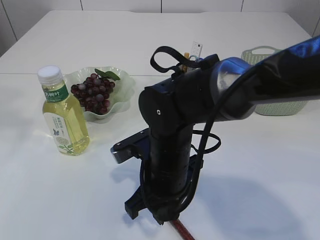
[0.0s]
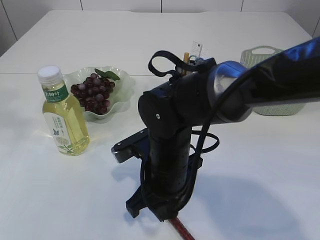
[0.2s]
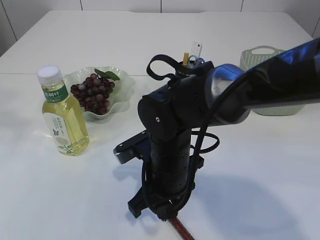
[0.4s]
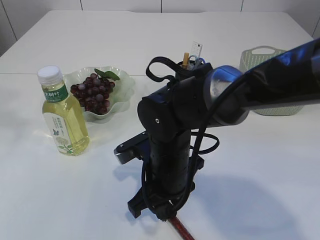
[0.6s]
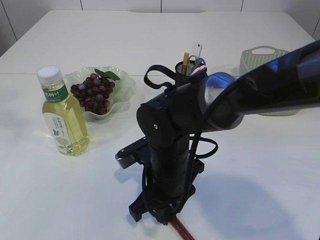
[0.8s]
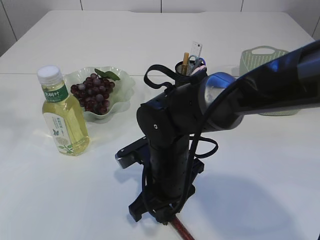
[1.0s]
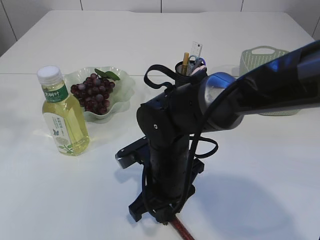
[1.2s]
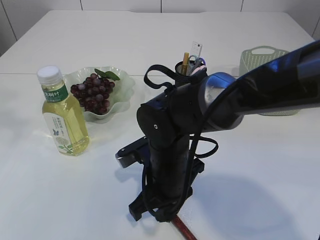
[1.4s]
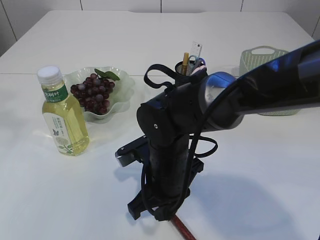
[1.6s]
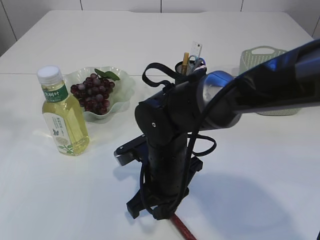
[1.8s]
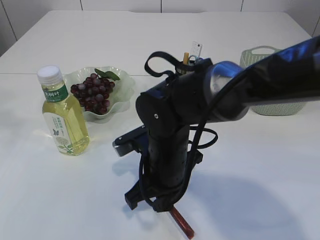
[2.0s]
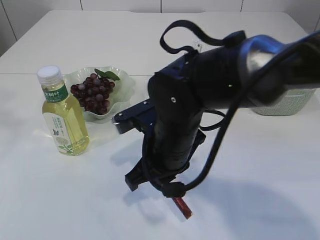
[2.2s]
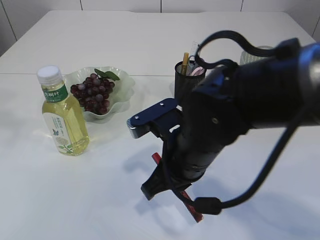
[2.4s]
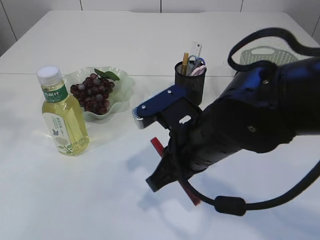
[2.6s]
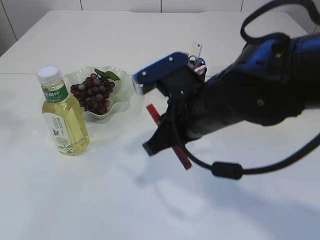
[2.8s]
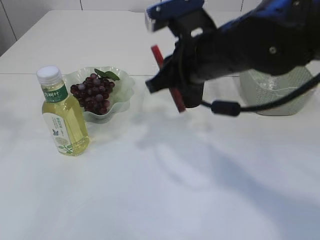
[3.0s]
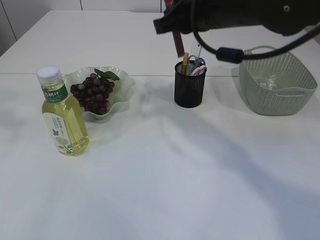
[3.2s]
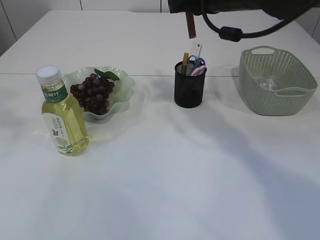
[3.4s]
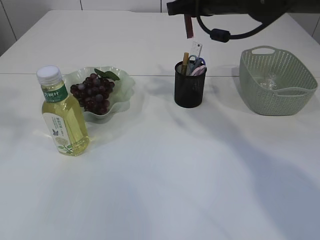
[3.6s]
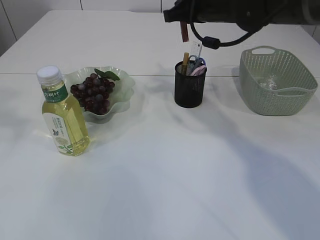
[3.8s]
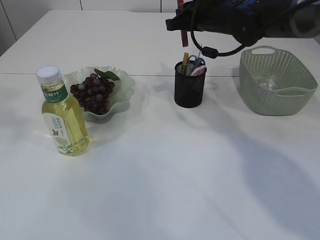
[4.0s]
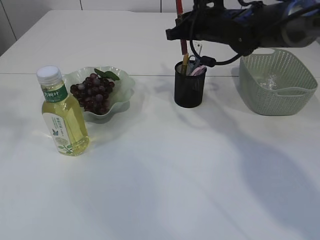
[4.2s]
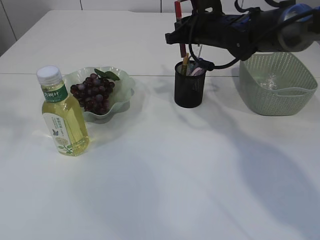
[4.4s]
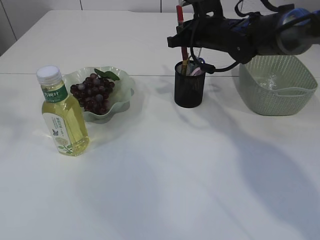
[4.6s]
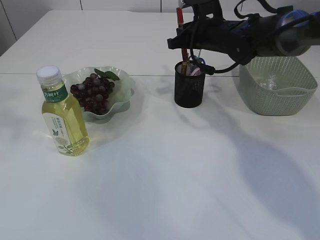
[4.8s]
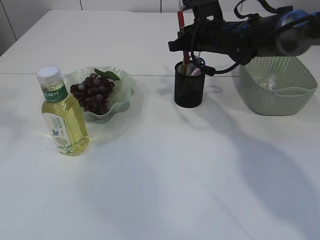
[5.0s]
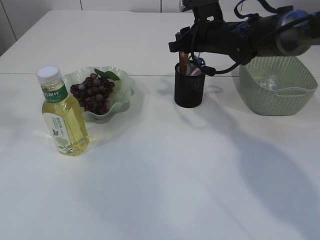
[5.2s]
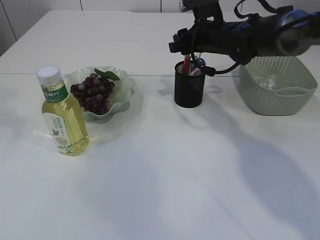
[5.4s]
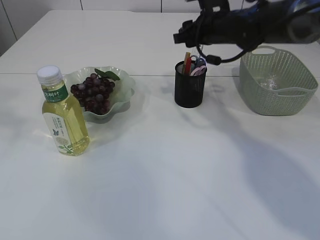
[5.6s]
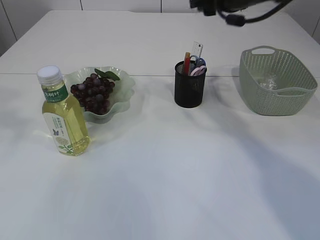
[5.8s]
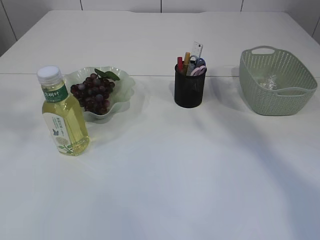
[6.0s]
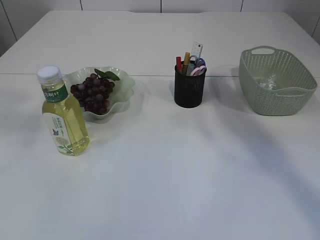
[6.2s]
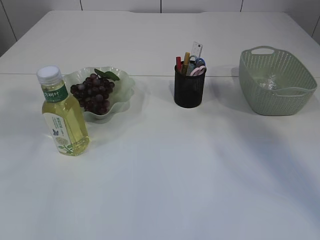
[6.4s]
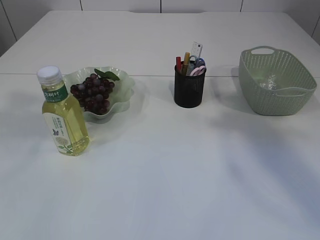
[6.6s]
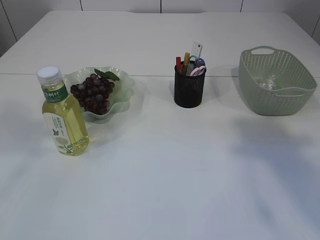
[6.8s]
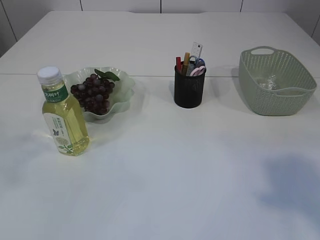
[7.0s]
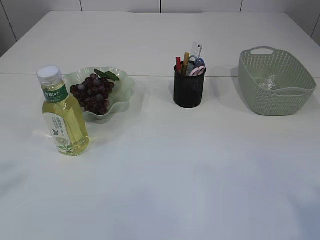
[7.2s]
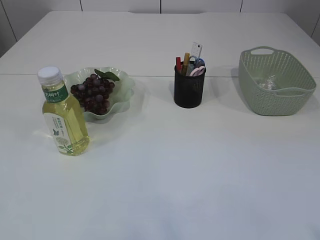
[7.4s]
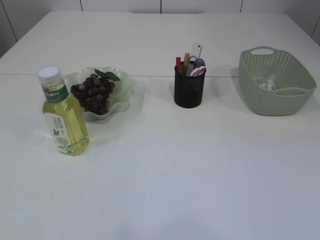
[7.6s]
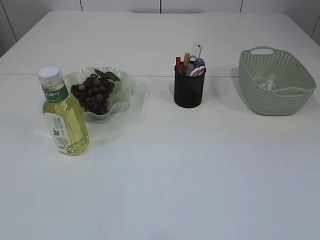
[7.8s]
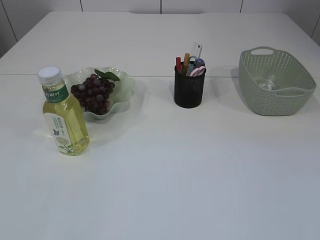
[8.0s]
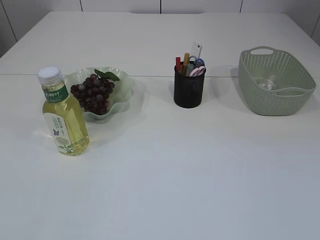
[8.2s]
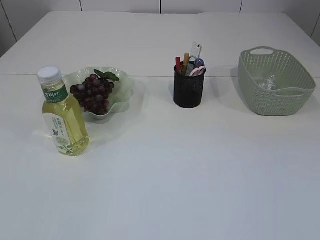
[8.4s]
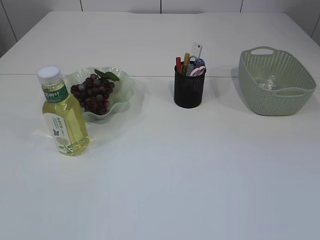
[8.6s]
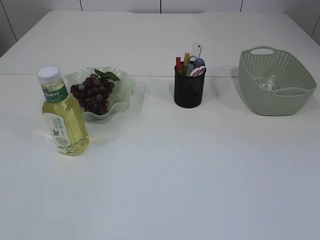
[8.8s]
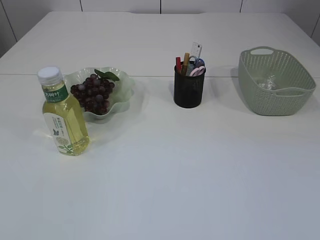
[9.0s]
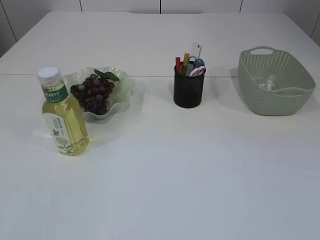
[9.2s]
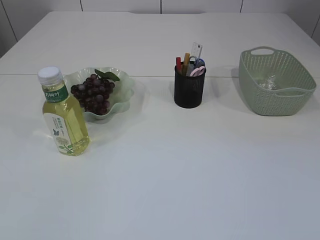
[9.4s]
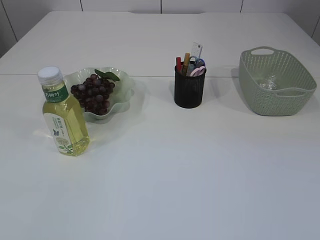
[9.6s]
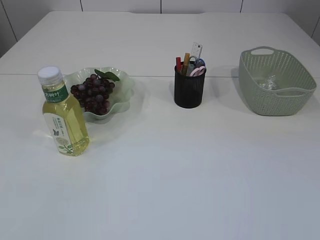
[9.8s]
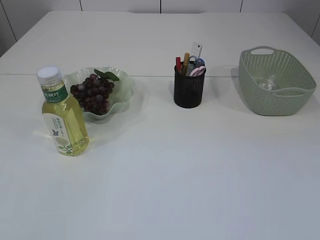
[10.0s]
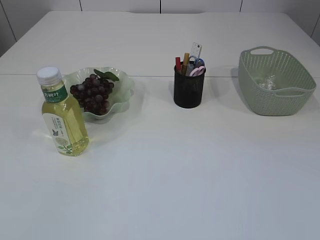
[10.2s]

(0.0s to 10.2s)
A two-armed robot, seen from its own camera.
Step, 0.0s - 2.2s: pick up the red glue.
Step, 2.4s - 5.4s: place the red glue into the pen holder.
0.0s - 1.4s: The grippers make only small movements.
1.4s - 3.0s: The right gripper moves upward and to the right, about 15 cm.
3.0s - 4.4s: The right gripper goes about 20 cm forward.
4.4s - 5.8s: The right gripper heads upward, covering approximately 10 cm, and opens up.
5.8s - 7.2s: The left gripper is displaced backward by roughly 15 cm, while the right gripper moves backward, roughly 40 cm.

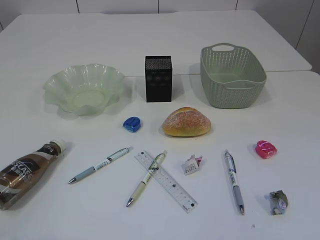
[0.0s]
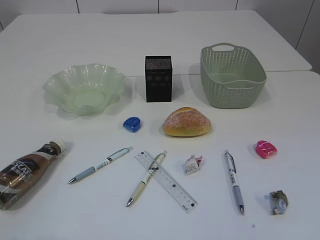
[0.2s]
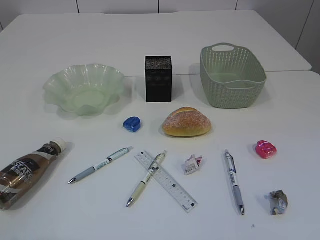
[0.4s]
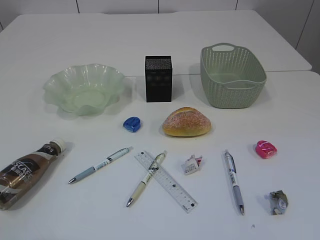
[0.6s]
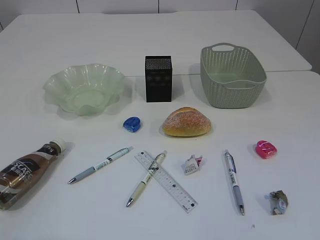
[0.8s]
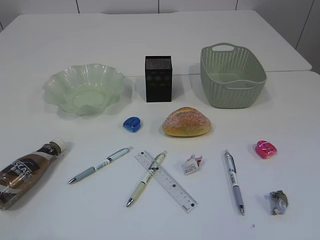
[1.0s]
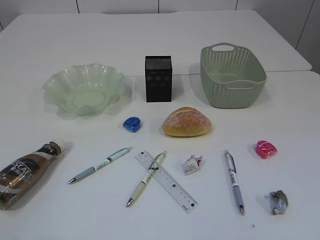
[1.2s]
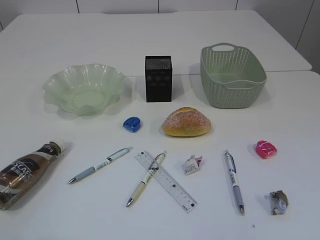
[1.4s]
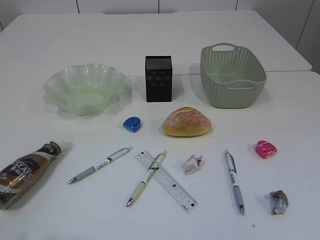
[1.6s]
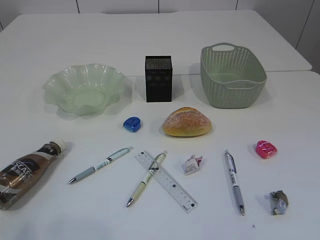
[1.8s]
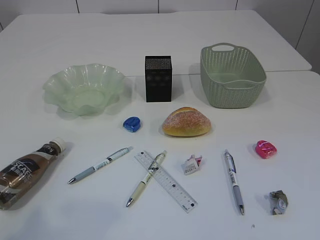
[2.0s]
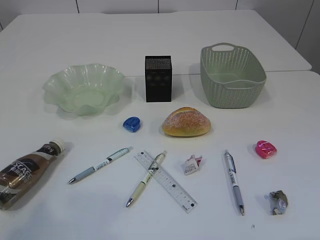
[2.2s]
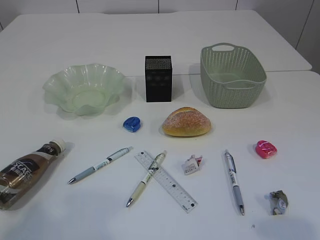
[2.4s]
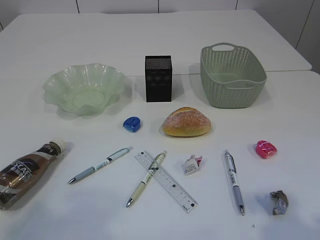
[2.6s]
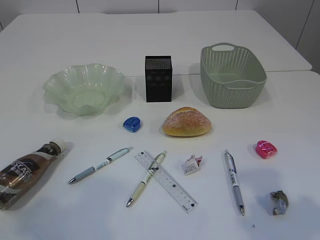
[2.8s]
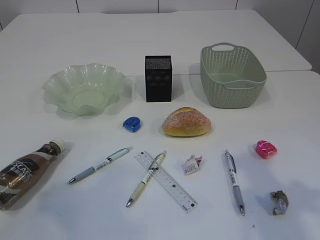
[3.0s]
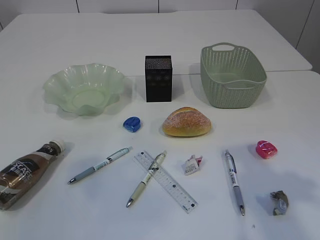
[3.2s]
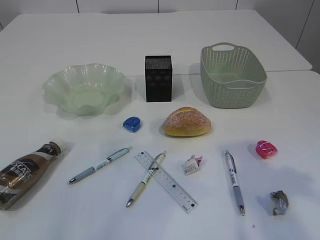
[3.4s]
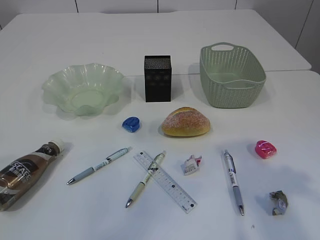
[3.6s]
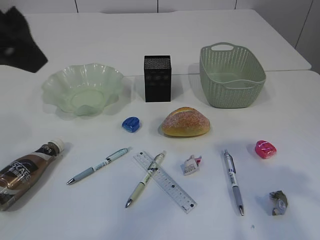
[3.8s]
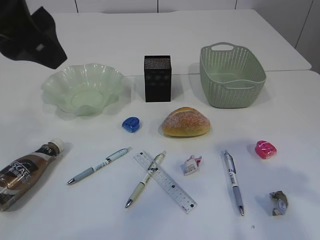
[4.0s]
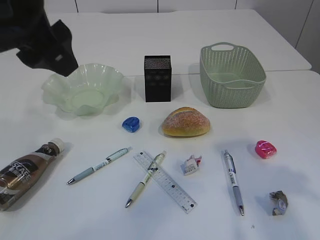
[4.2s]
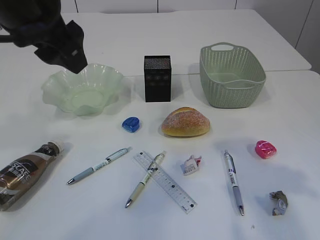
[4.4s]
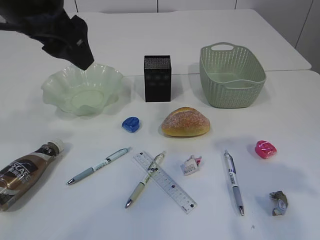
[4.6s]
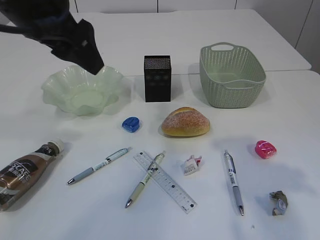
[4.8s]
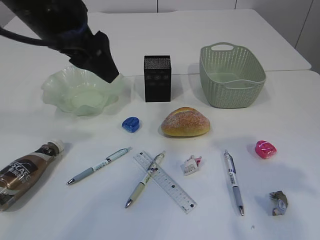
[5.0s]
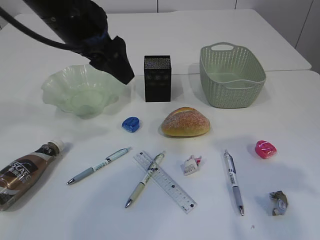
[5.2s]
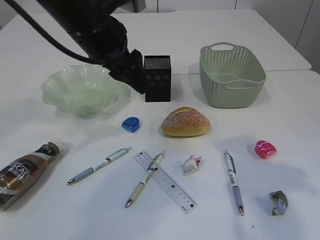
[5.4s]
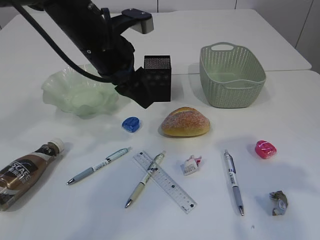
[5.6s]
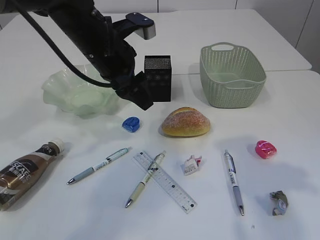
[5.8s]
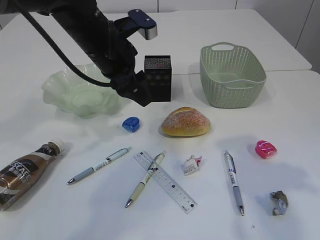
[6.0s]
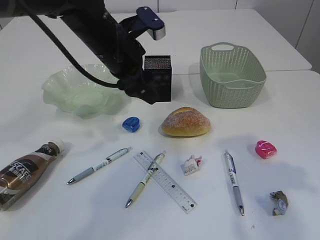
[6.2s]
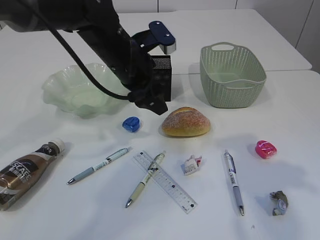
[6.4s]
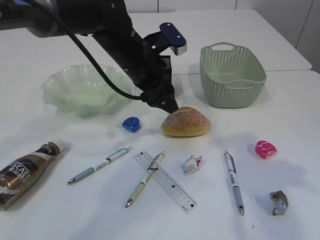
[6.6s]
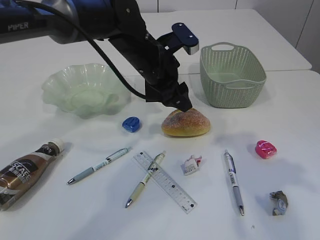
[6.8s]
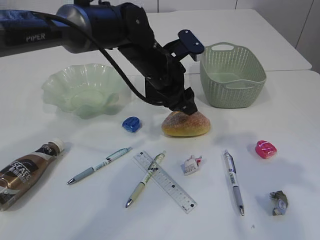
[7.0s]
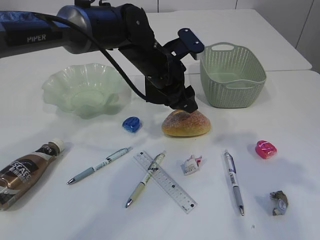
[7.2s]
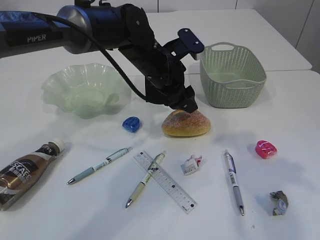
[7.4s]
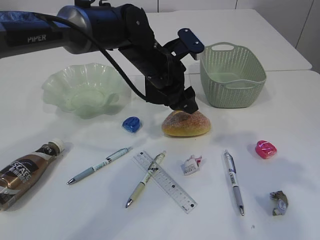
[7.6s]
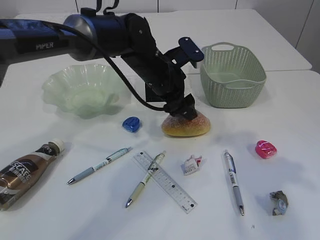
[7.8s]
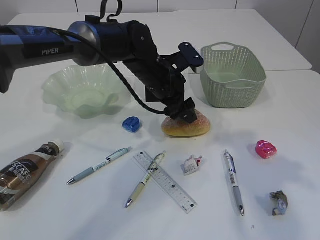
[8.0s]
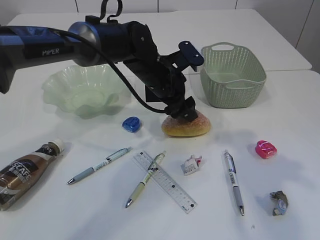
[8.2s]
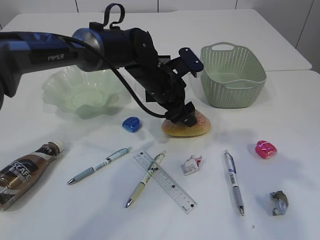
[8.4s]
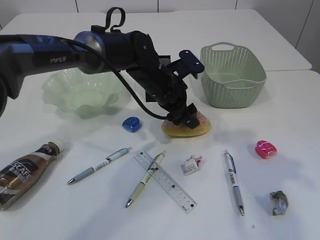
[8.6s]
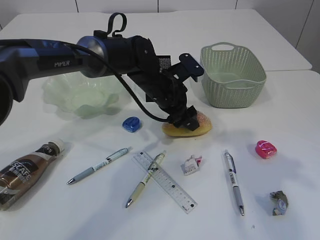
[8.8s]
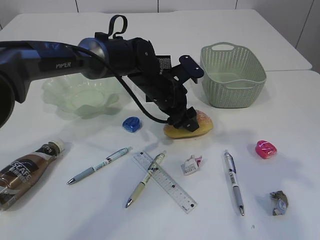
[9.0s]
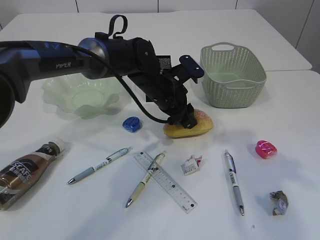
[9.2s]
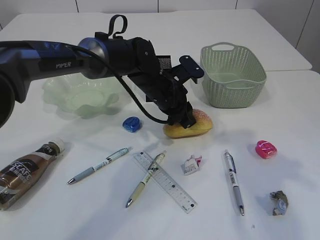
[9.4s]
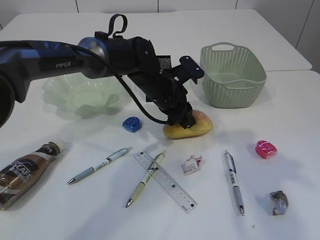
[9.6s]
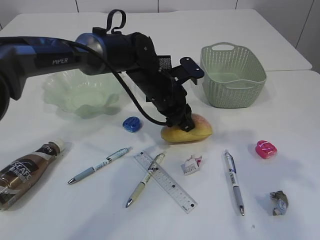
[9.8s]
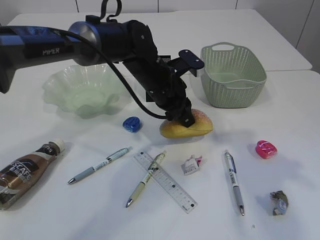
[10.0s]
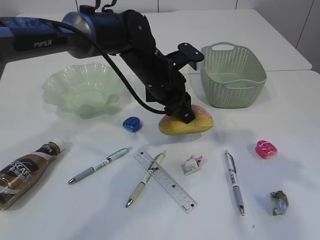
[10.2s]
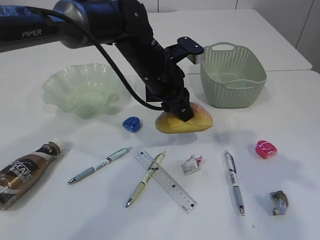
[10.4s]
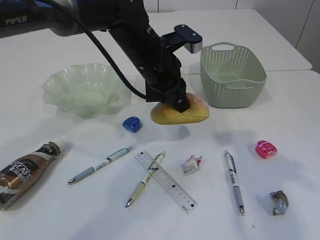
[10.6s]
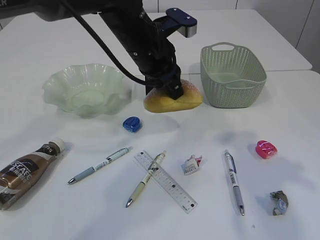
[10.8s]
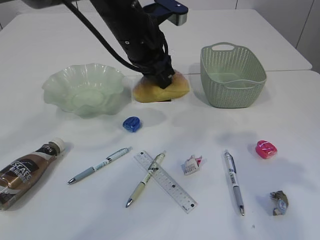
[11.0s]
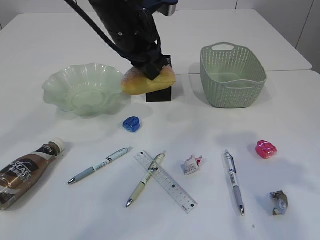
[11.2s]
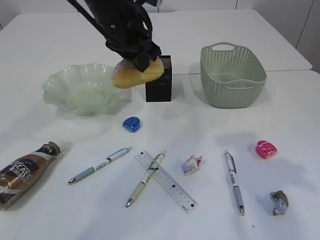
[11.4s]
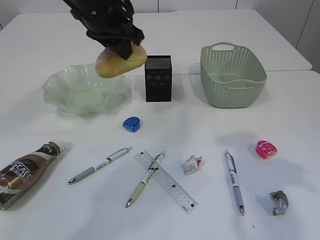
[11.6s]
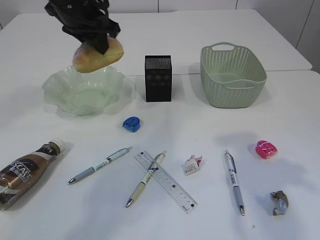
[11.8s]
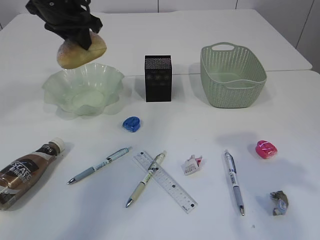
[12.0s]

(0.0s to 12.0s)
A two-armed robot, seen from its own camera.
1.6s - 3.0s: Both grippers travel together forward and upward, approximately 15 cm.
3.0s - 4.4s: The left gripper travels forward and to the right by approximately 25 cm.
4.4s - 6.0s: The left gripper heads forward, downward and to the right, covering some 20 cm.
6.0s - 7.6s: The left gripper goes about 10 cm to the right and downward.
7.6s - 9.0s: The left gripper travels downward by approximately 5 cm.
9.0s - 10.4s: The left gripper shifts about 5 cm upward, and closes.
10.4s - 12.0s: The left gripper moves to the left and upward, some 20 cm.
